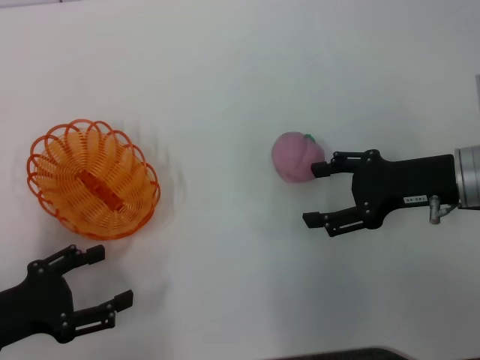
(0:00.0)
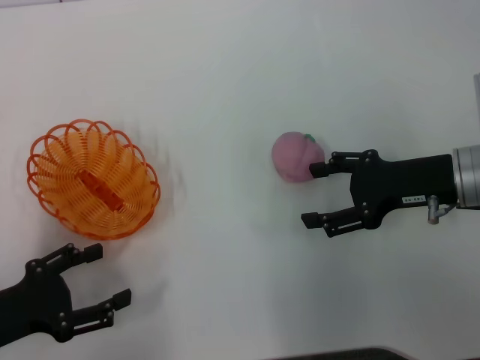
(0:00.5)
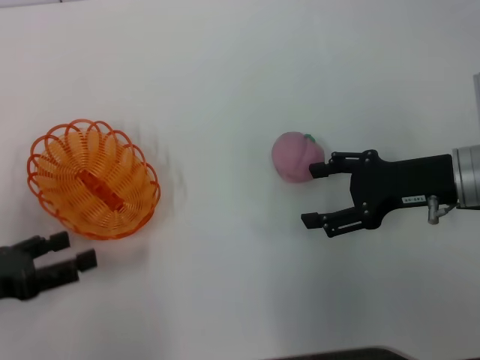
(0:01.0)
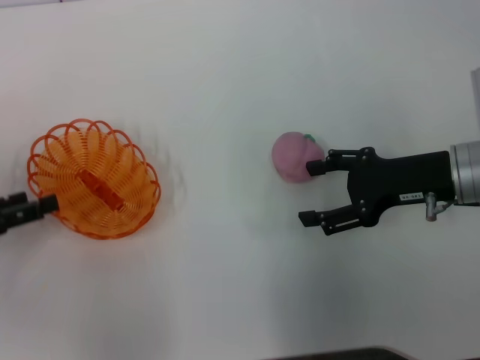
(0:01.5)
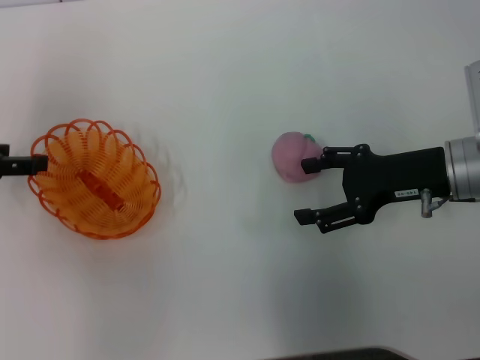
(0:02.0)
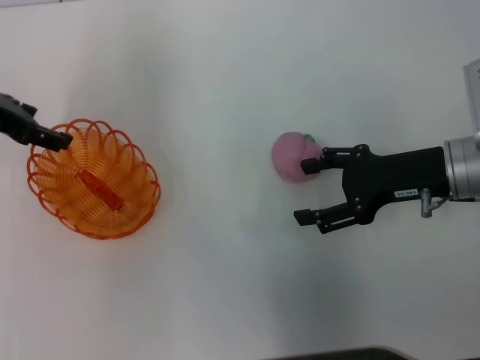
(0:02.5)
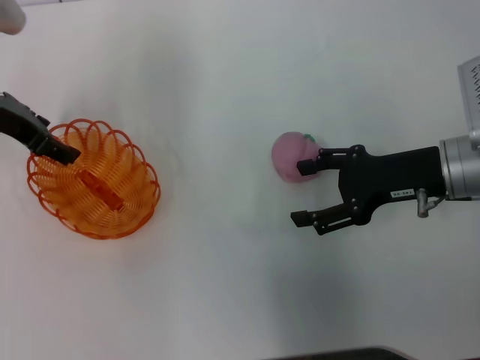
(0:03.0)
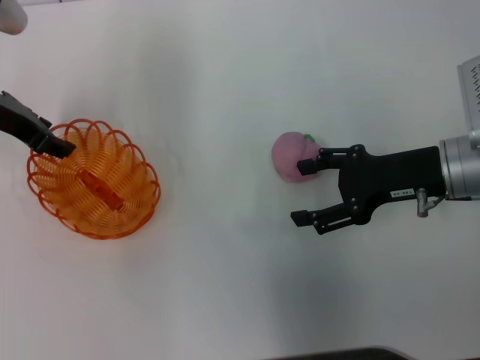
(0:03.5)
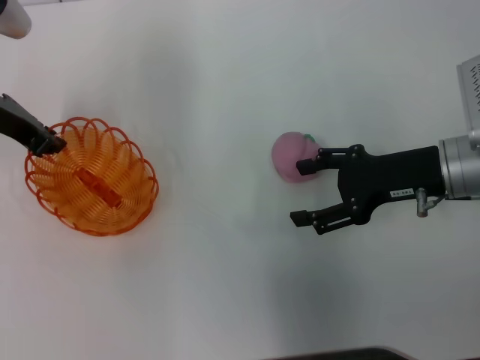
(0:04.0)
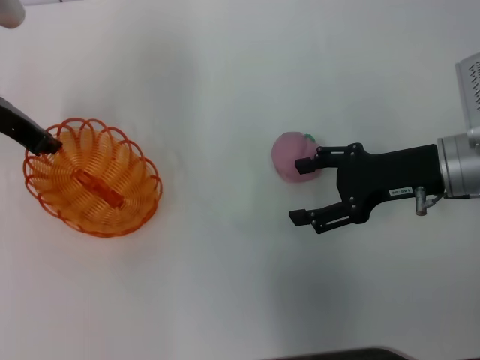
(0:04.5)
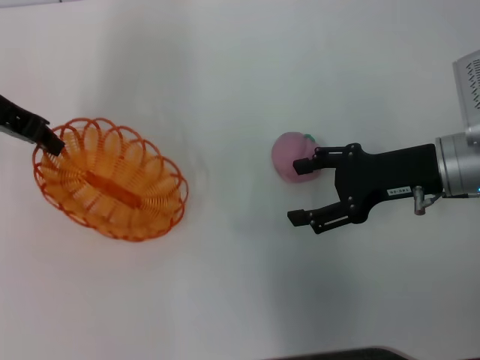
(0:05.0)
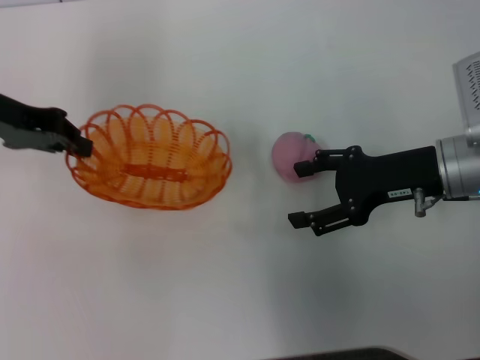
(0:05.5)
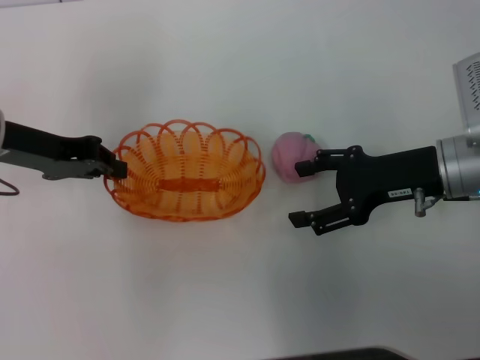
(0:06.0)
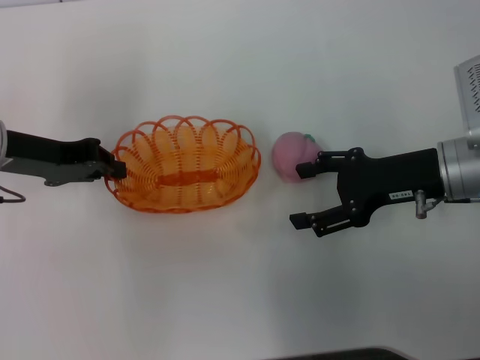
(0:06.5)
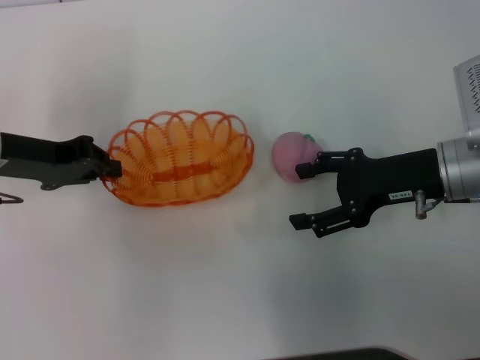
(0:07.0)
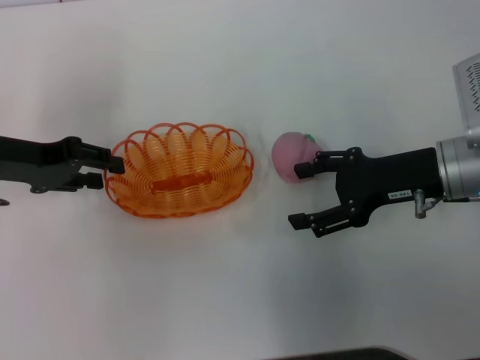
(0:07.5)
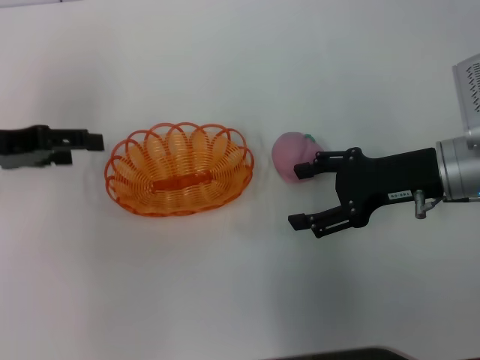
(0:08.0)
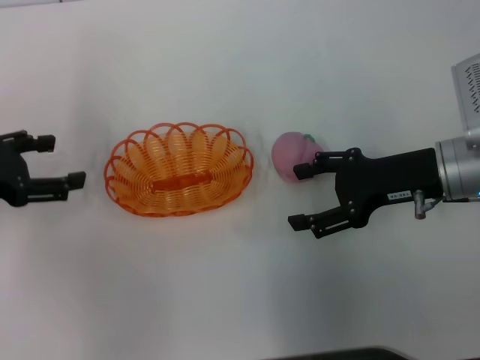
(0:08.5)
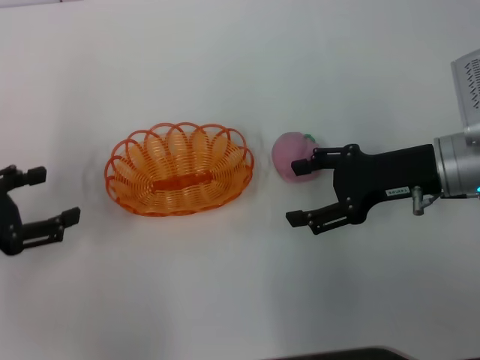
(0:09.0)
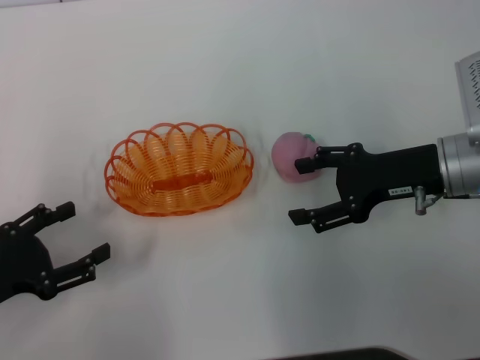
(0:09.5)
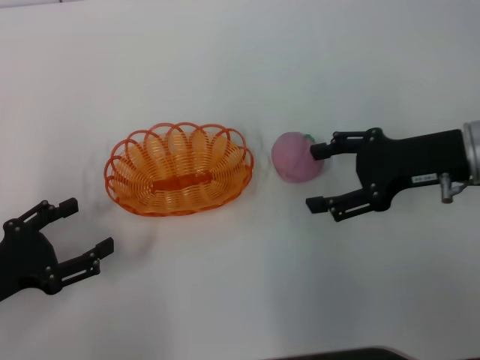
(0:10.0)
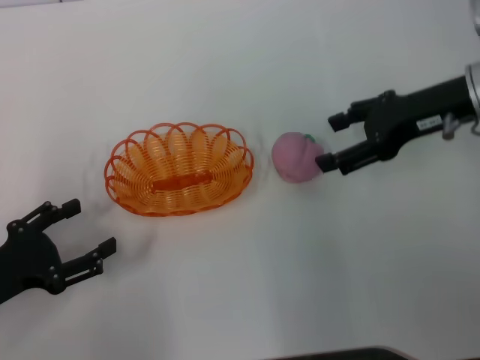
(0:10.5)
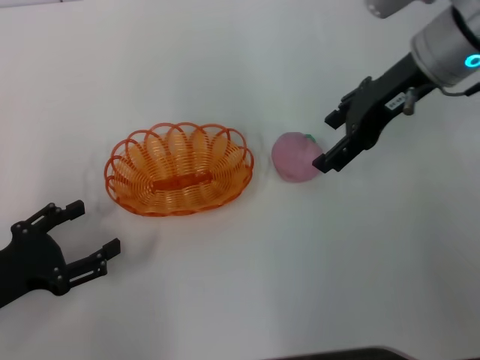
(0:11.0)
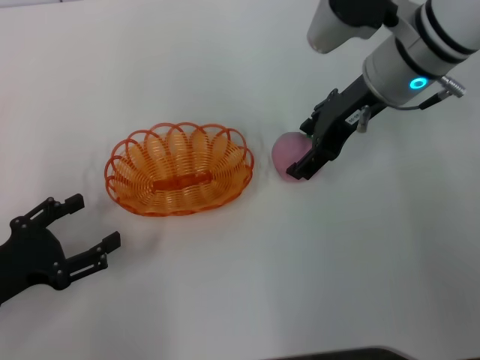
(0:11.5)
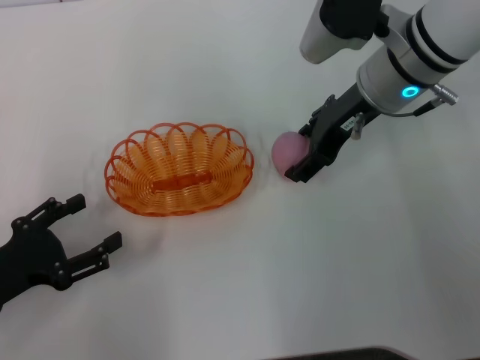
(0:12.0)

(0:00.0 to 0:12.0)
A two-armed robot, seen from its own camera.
Step, 0:00.0 - 0:05.0: Pick up the basket with the left gripper.
Step, 0:05.5 - 0:08.5: Place the basket in the center of view with the left gripper.
0:00.0 - 0:02.0: The left gripper goes roughly 15 cm forward and upward.
0:02.0 - 0:04.0: The left gripper shifts some 10 cm to the right and forward, and closes.
0:06.0 - 0:08.0: The left gripper heads to the left, covering some 5 cm, and opens its fingers.
0:08.0 - 0:10.0: The left gripper shifts about 15 cm backward and downward.
0:10.0 - 0:12.0: The right gripper travels to the left and forward by about 15 cm.

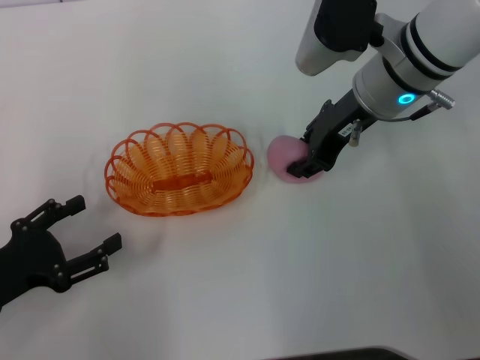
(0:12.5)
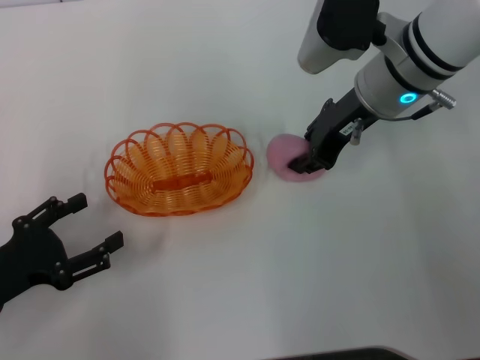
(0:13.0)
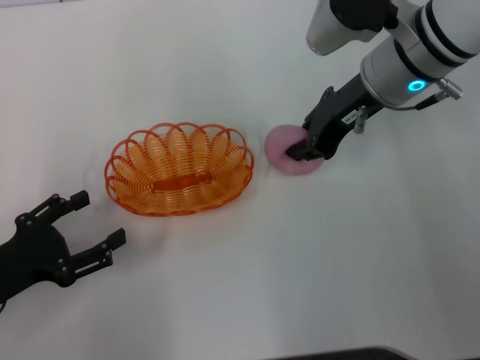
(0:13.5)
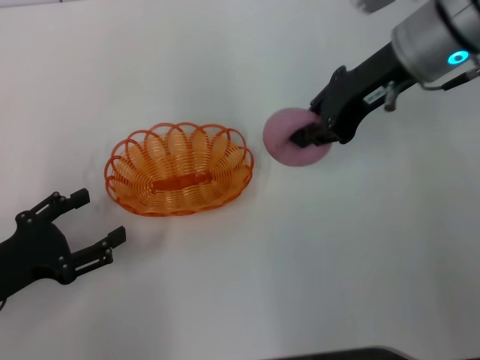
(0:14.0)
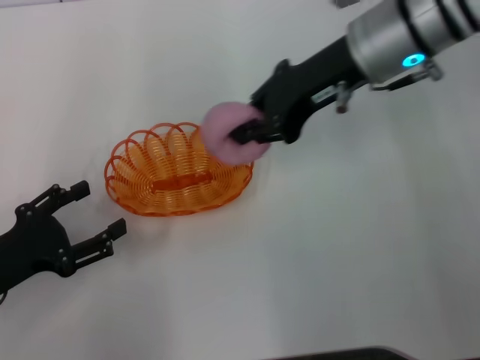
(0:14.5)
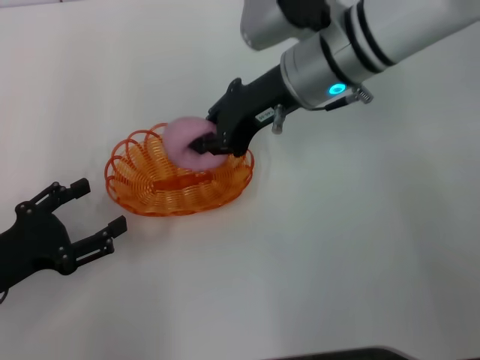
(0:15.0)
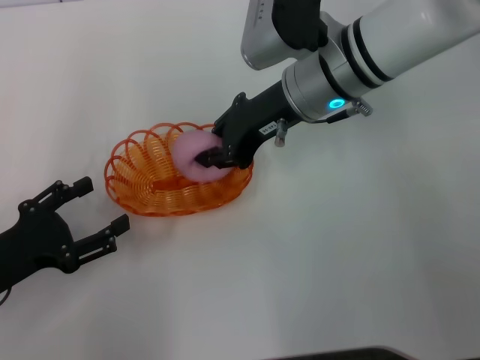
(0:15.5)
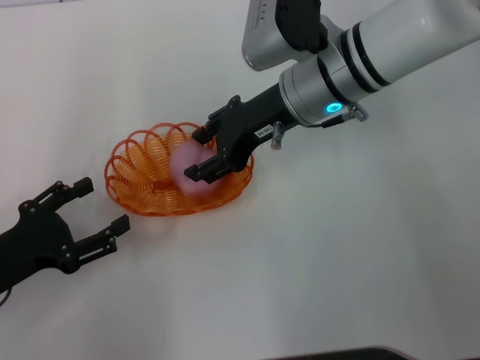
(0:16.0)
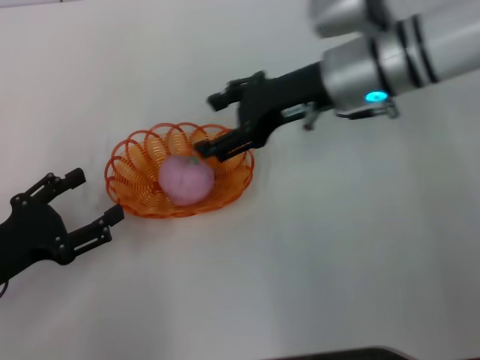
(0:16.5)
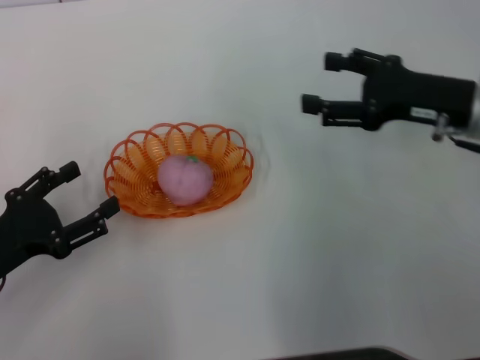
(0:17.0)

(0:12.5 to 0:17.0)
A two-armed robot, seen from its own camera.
Step, 0:14.5 - 0:16.5: Place the peach into the basket with the right gripper.
0:12.5 - 0:14.5: The right gripper travels upward by about 5 cm, and closes.
0:14.5 - 0:17.0: The right gripper is displaced to the right, downward and backward by some 15 cm, and opens up.
